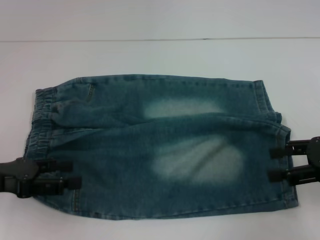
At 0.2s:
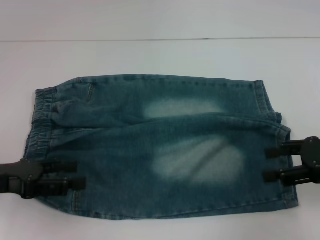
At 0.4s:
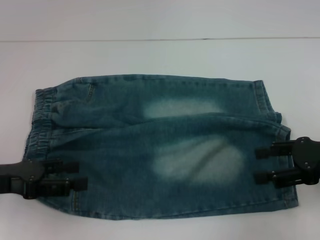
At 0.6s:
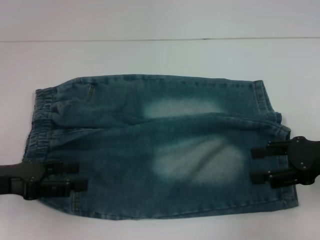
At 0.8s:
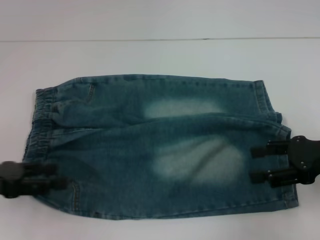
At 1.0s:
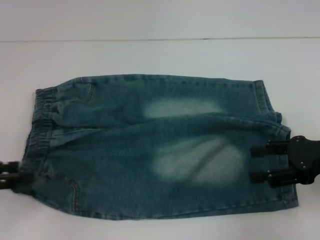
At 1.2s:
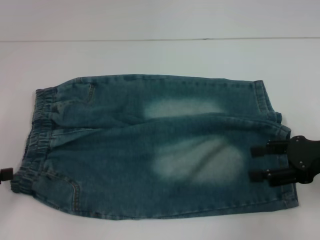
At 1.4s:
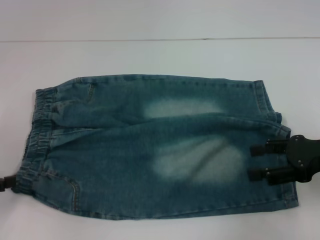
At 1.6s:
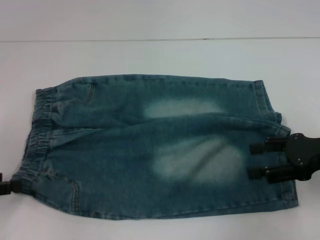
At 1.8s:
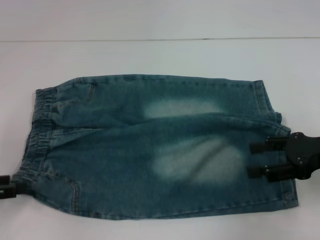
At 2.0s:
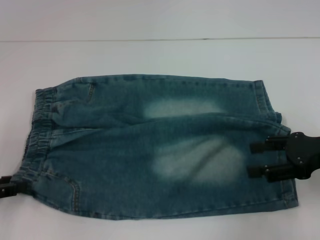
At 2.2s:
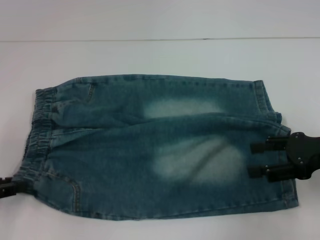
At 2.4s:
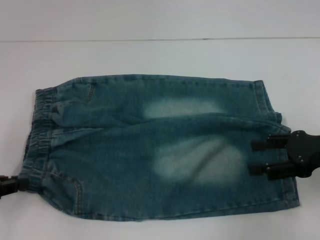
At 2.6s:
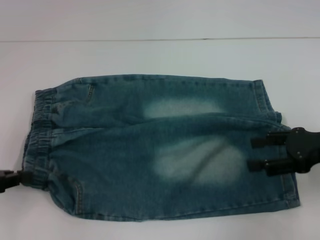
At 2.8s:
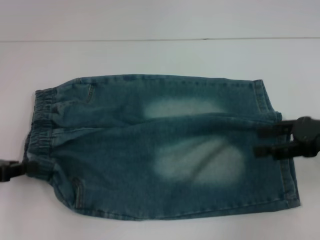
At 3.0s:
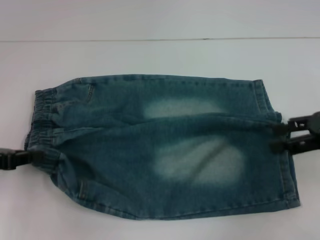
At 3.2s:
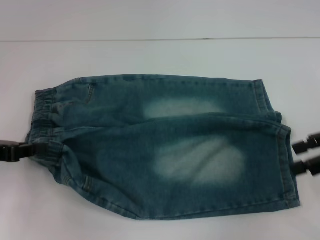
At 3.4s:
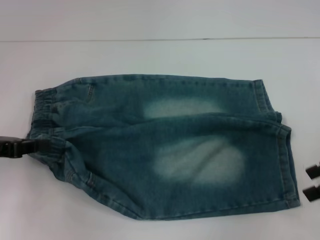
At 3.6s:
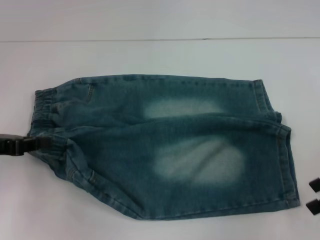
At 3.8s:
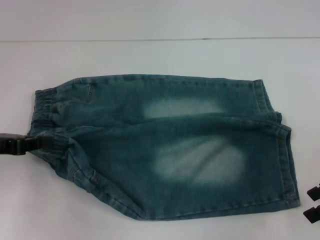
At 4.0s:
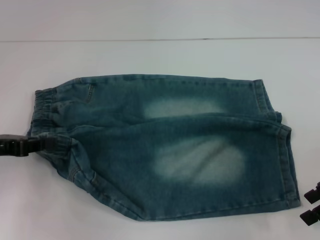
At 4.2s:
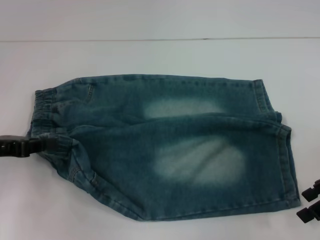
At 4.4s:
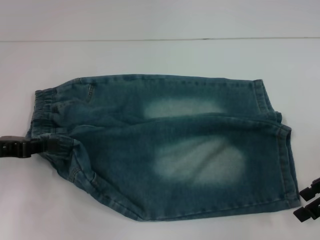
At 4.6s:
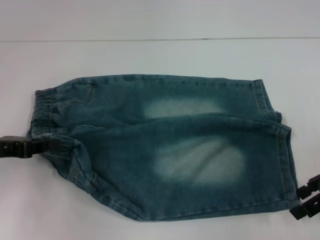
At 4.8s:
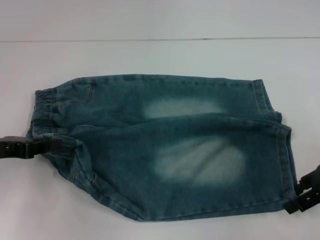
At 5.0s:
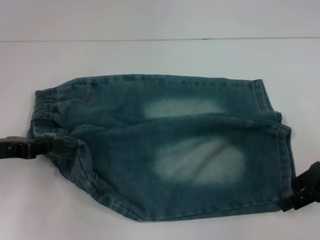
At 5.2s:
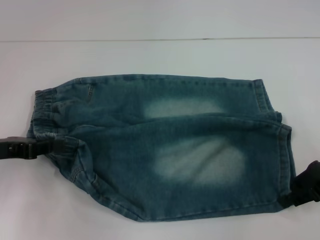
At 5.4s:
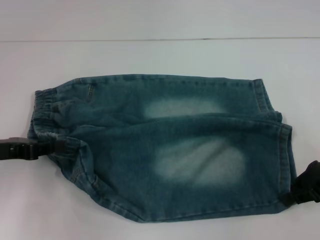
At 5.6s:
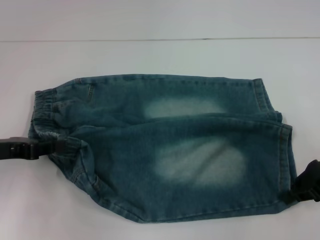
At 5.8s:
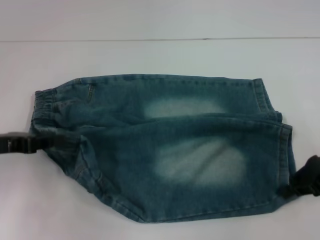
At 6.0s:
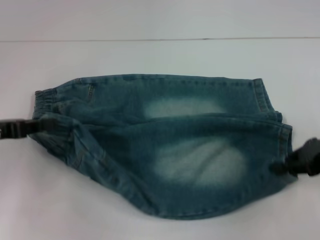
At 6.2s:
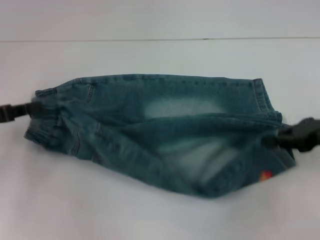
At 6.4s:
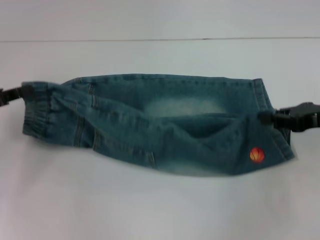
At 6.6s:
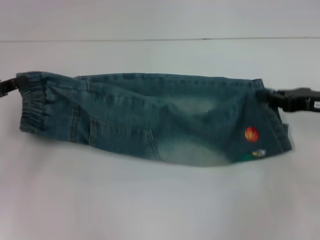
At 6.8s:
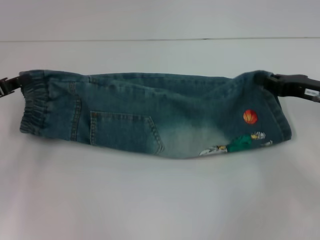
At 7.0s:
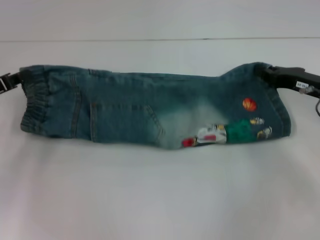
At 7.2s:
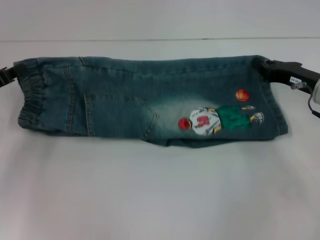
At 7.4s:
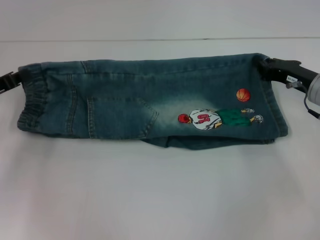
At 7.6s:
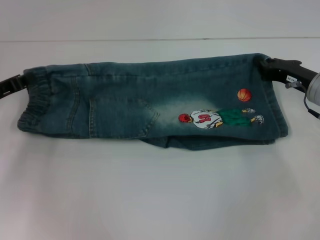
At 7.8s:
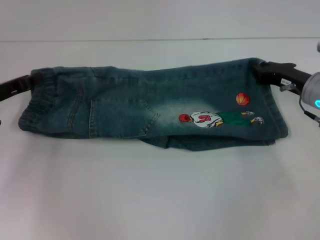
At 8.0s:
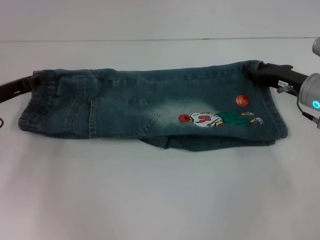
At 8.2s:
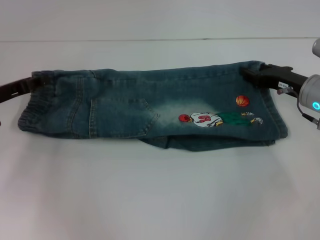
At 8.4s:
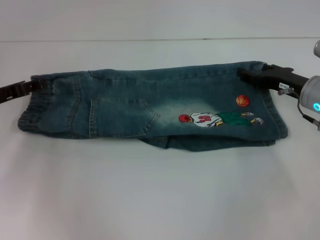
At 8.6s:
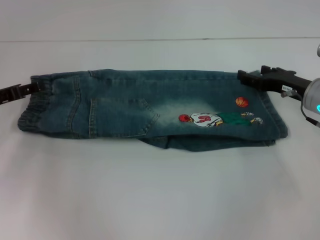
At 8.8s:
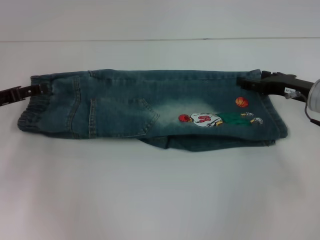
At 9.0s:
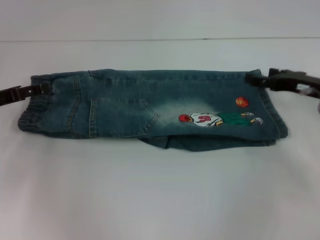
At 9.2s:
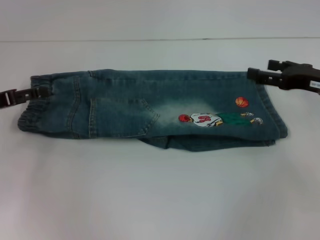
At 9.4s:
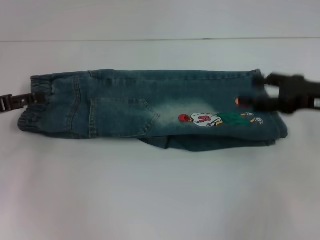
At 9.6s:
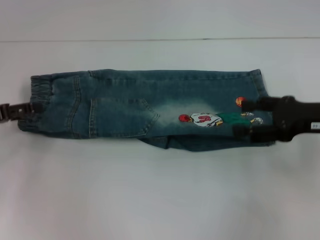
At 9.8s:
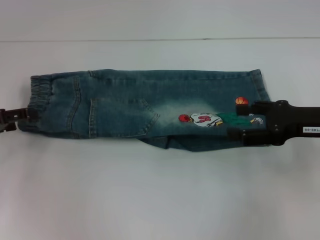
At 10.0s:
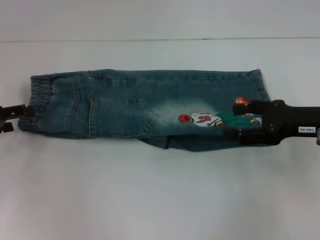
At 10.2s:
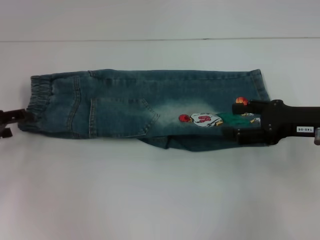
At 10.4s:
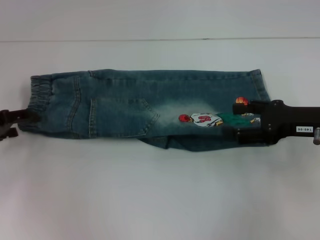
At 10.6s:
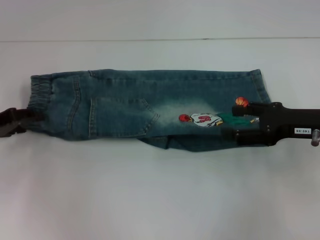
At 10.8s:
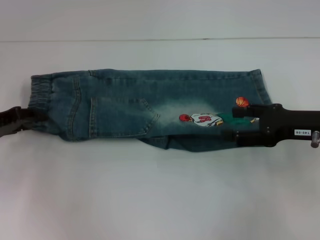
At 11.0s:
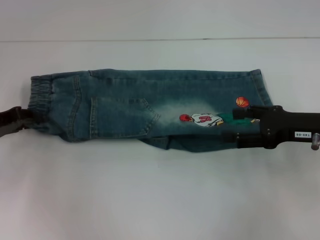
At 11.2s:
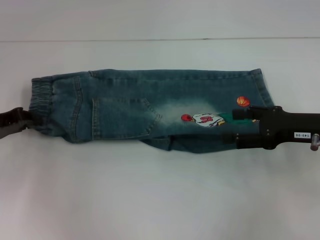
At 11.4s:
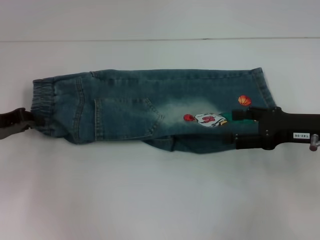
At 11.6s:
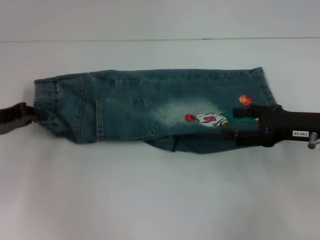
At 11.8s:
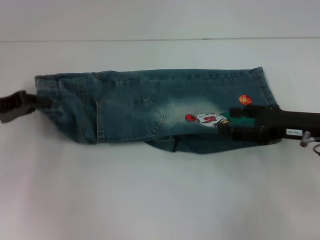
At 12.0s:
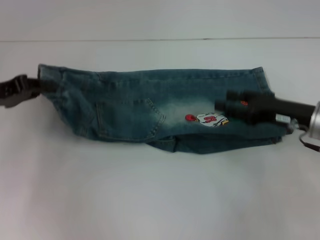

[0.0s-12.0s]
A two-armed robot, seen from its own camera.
Step, 0.0s to 2.2s: Hold the lower left waistband with your left hand.
Step, 2.4s to 5.2s: Grab the lower right pant leg with your right hand.
Step, 5.6s to 8.6s: Fold upward with your right hand.
Step, 8.8s to 10.4s: Hold the waistband with your left hand.
0.0s to 1.6s: The left gripper travels to the left by about 5 cm.
1.6s to 3.0s: The right gripper ends up approximately 5 cm from where it was, while the left gripper moves approximately 5 cm, and closes its fingers.
4.4s to 6.0s: The right gripper closes its fingers.
6.0s to 7.6s: The left gripper shifts about 5 cm forward, while the right gripper is displaced forward and downward by approximately 10 cm.
7.6s to 9.0s: The right gripper opens its fingers. Meanwhile the left gripper opens up.
9.0s to 10.4s: The right gripper heads backward, covering roughly 5 cm.
10.4s to 12.0s: The left gripper moves approximately 5 cm, and closes its fingers.

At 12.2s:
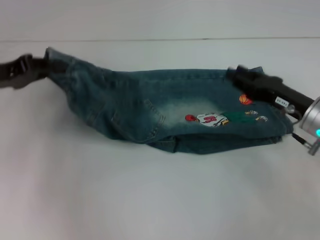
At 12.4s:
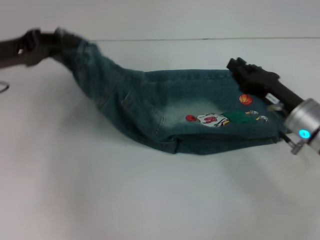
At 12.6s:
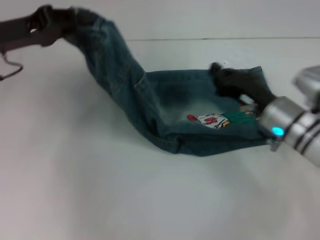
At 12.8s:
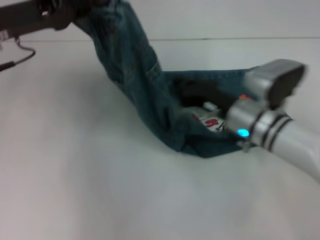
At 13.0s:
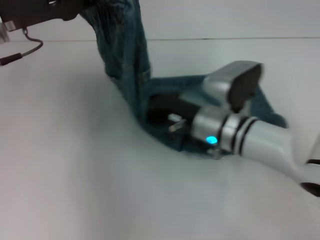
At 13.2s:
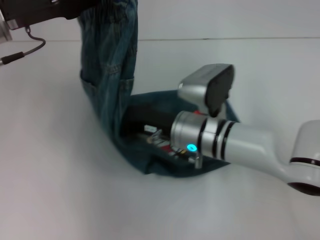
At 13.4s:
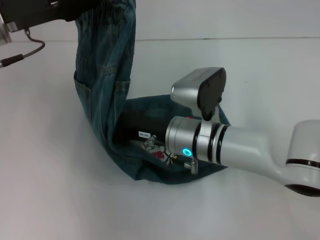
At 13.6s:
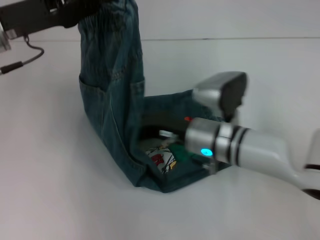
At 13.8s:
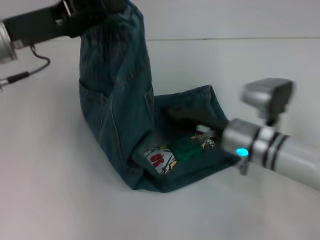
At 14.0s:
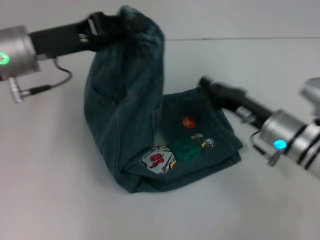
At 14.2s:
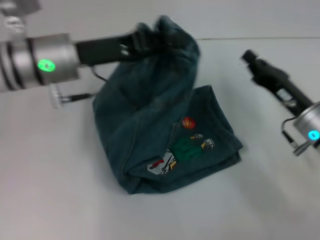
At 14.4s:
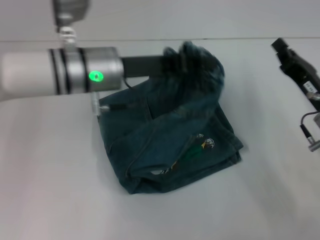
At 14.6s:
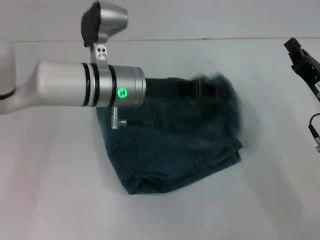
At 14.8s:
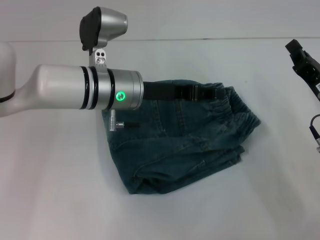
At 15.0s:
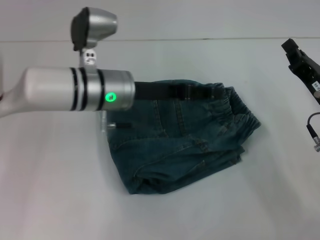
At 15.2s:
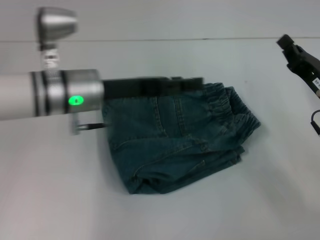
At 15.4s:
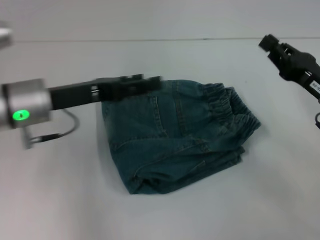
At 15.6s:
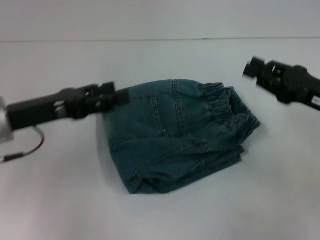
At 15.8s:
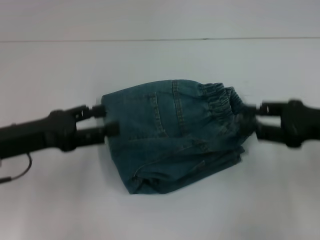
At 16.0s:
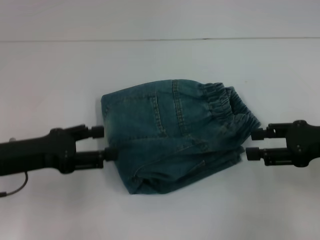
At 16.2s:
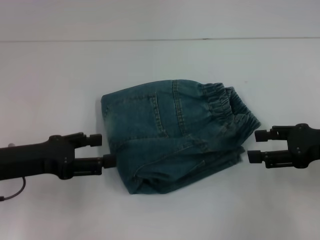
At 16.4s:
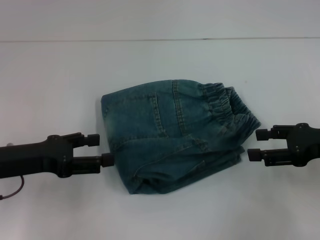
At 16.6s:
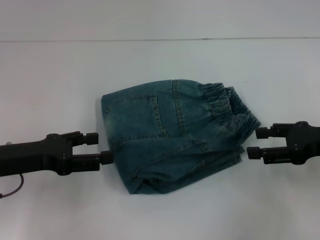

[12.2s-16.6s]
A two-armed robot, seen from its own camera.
Step, 13.8s to 15.4s: Fold to the right with your left hand.
12.2s to 13.6s: The left gripper moves to the right and upward, roughly 10 cm, while the right gripper shifts about 15 cm to the left, and closes.
13.6s to 15.2s: The left gripper is displaced to the right and downward by approximately 10 cm, and opens. The right gripper heads to the right, covering approximately 20 cm.
15.2s to 16.6s: The left gripper shifts approximately 15 cm to the left and backward. Meanwhile the right gripper changes place by about 5 cm, and opens.

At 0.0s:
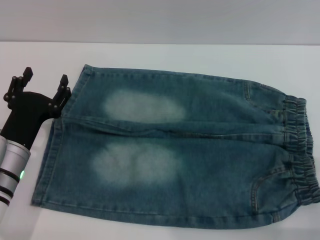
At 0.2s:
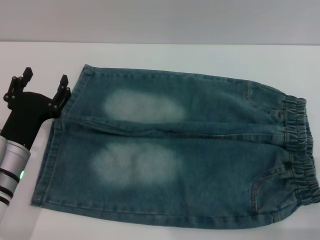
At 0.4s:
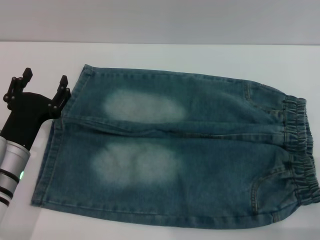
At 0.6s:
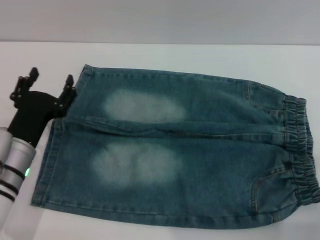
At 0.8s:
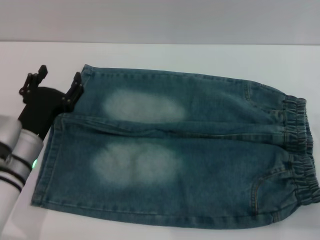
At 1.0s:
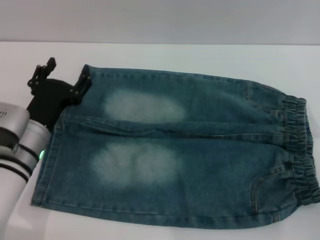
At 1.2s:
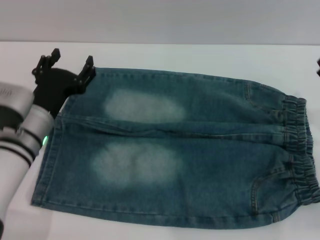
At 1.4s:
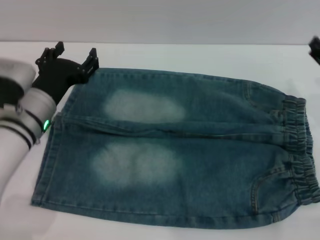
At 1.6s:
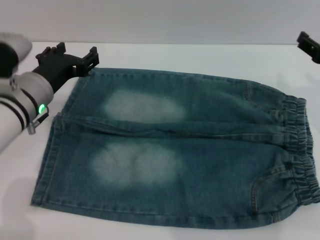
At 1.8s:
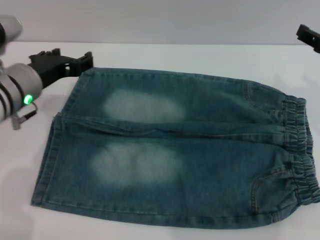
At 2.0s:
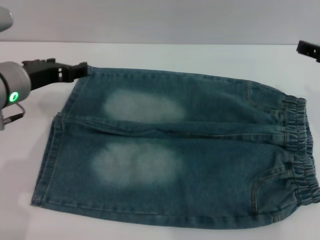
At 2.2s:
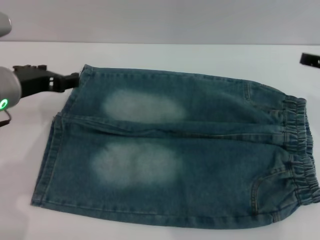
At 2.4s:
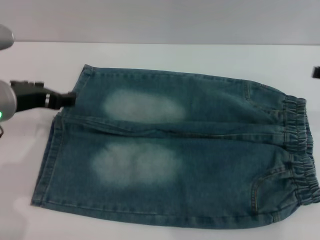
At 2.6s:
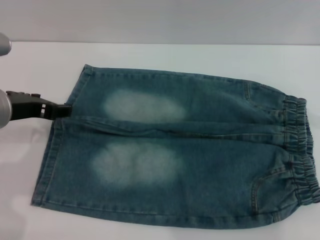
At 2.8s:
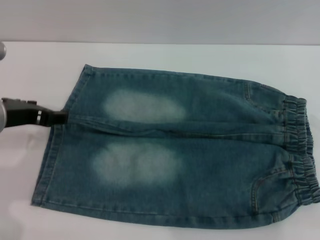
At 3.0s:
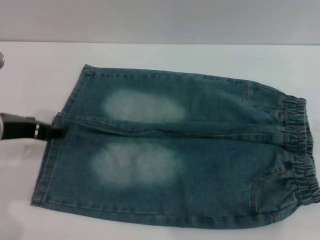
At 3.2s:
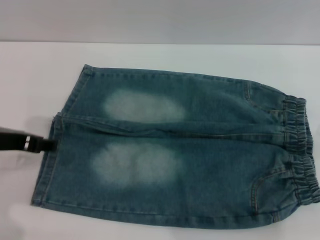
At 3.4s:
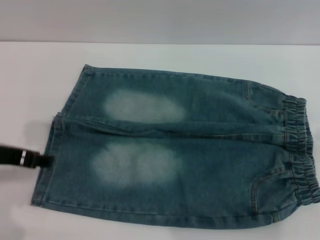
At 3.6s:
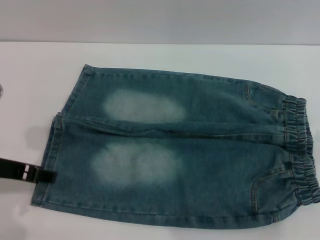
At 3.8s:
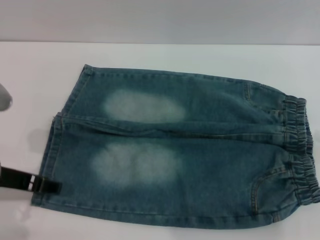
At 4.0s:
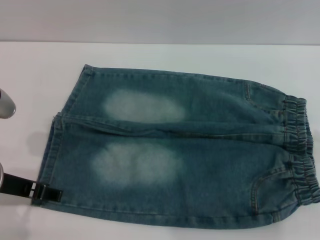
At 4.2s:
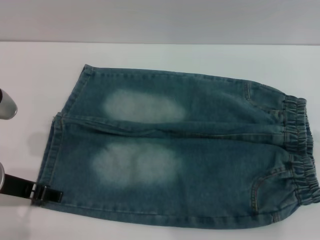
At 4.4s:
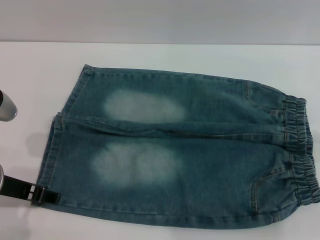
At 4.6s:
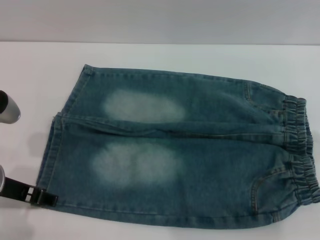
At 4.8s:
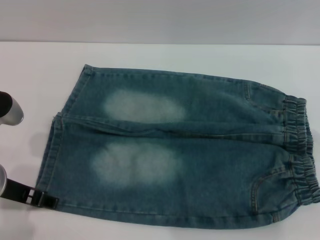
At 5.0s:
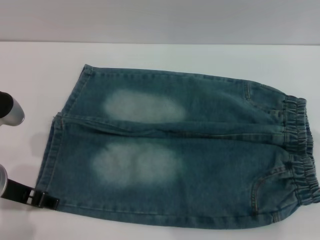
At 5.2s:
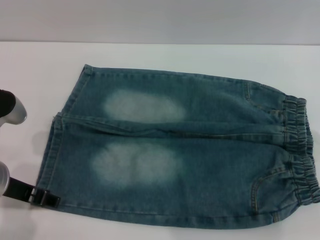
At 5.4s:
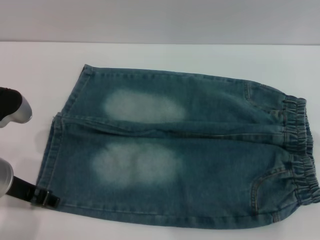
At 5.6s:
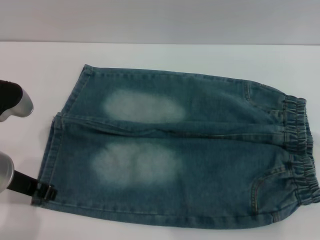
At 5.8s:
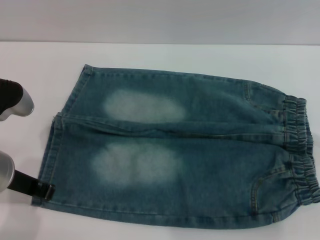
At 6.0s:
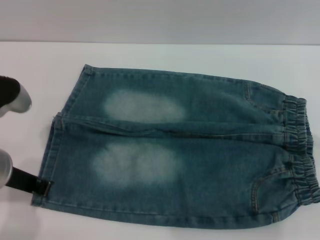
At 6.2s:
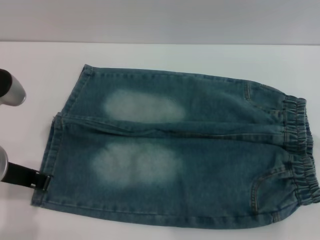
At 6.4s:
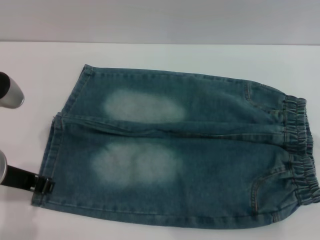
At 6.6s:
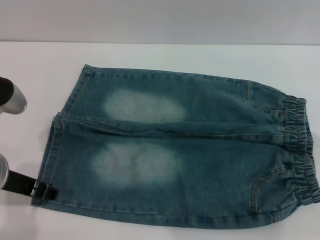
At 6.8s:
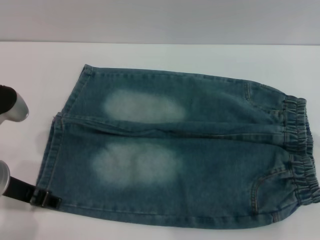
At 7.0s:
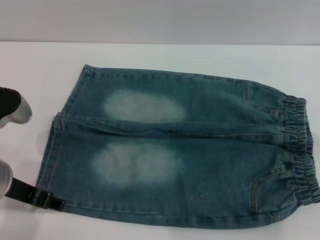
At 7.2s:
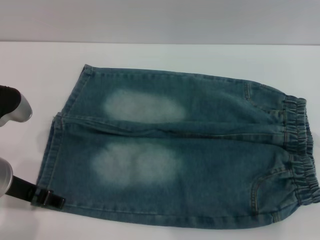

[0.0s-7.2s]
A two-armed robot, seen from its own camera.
0.0s to 1.4s: The left gripper shifts roughly 5 cm forward, while the right gripper goes some 15 cm forward and upward.
1.4s to 2.8s: The left gripper shifts some 10 cm upward.
2.8s to 4.4s: The left gripper is displaced backward by about 5 cm.
4.4s to 5.8s: The grippers stay close to where they were, moving slightly.
5.8s to 7.2s: The left gripper opens its fingers.
